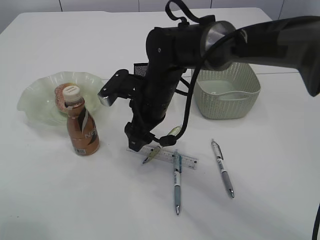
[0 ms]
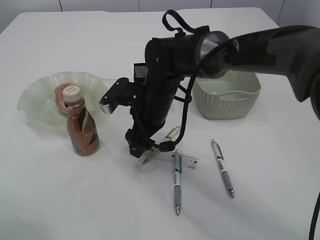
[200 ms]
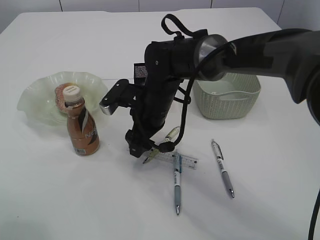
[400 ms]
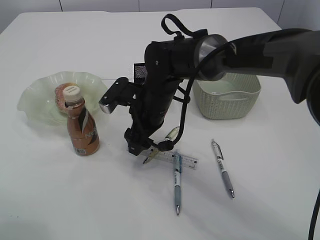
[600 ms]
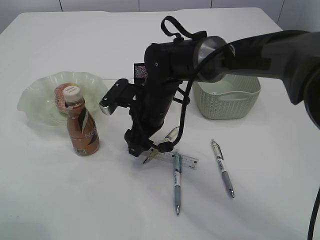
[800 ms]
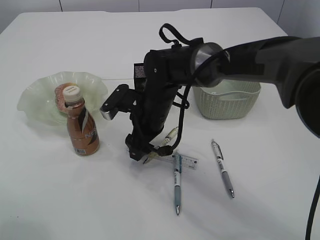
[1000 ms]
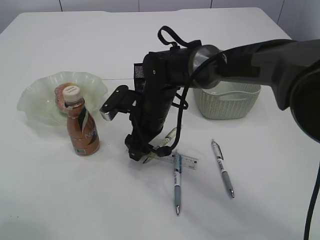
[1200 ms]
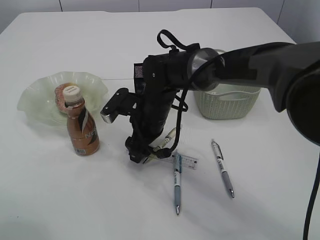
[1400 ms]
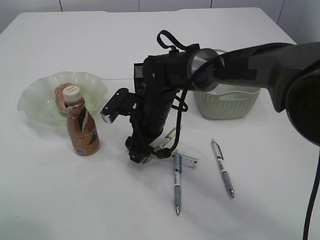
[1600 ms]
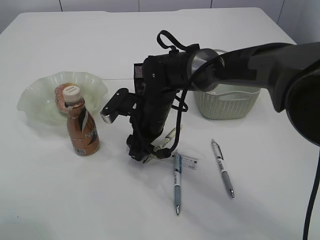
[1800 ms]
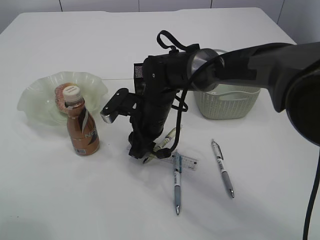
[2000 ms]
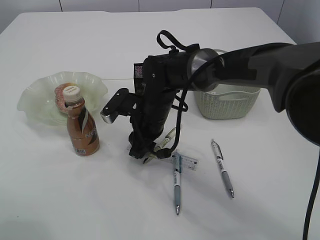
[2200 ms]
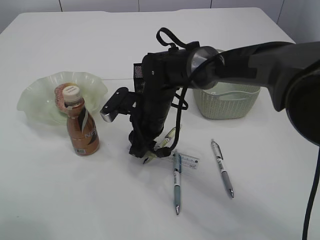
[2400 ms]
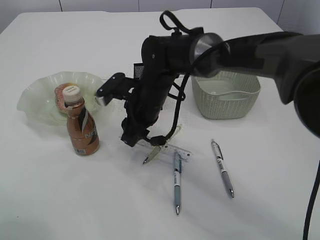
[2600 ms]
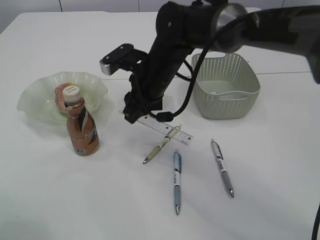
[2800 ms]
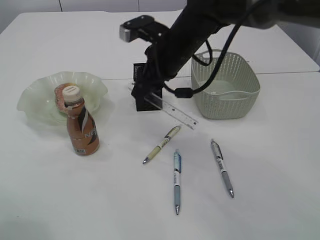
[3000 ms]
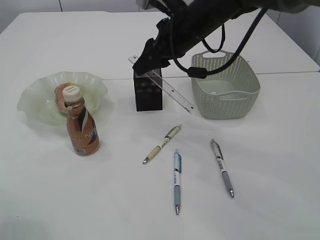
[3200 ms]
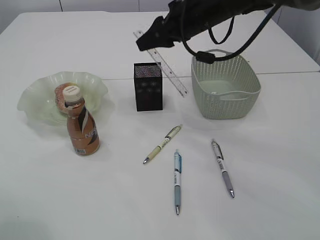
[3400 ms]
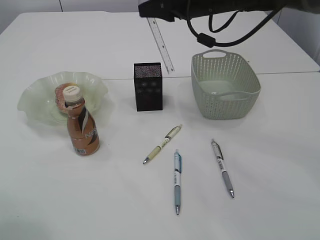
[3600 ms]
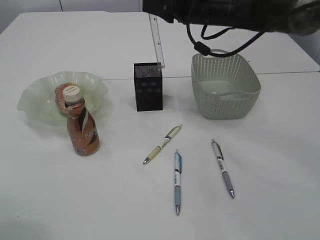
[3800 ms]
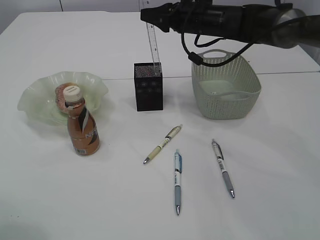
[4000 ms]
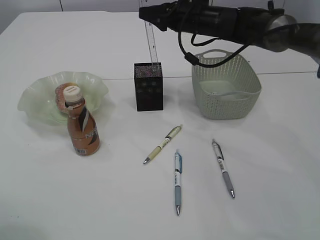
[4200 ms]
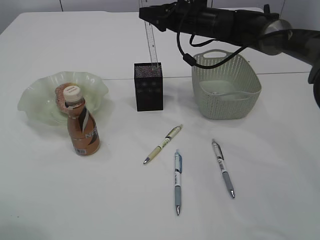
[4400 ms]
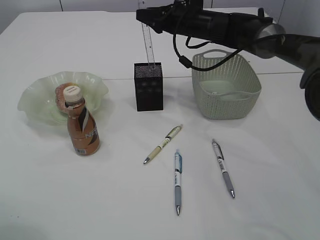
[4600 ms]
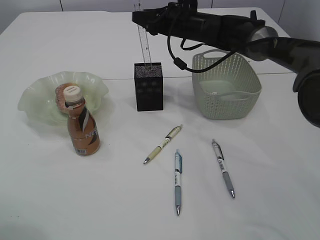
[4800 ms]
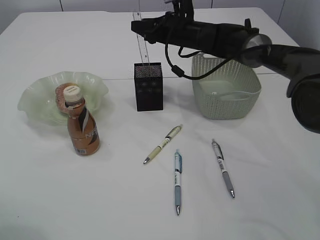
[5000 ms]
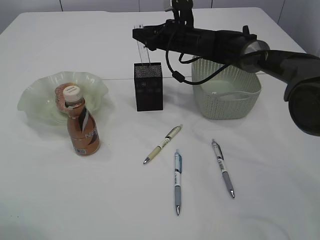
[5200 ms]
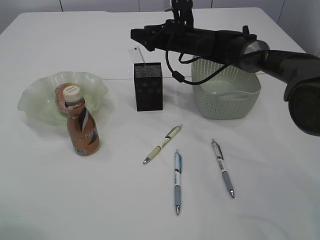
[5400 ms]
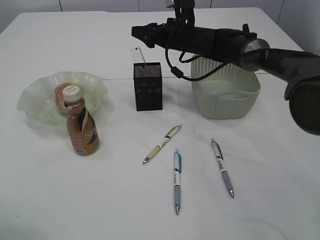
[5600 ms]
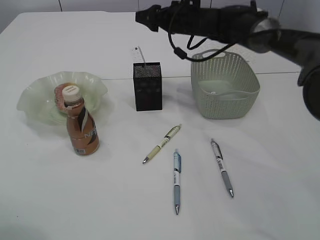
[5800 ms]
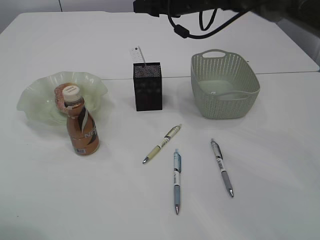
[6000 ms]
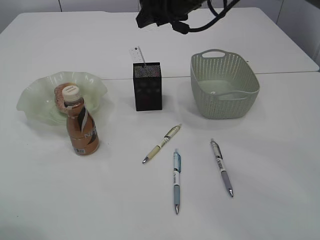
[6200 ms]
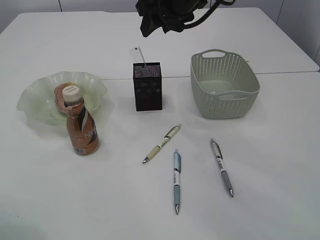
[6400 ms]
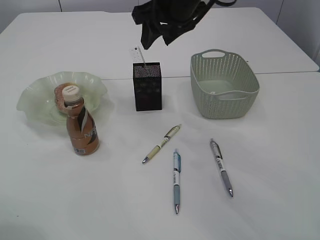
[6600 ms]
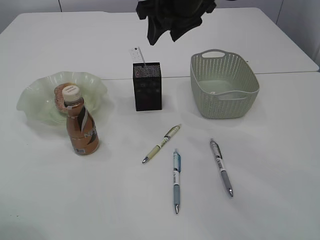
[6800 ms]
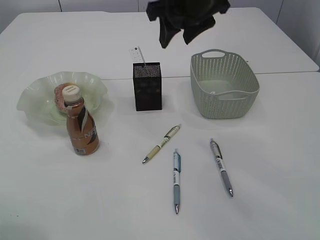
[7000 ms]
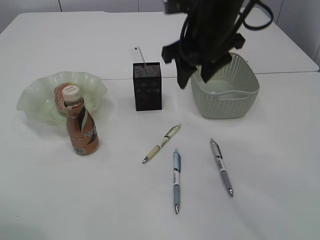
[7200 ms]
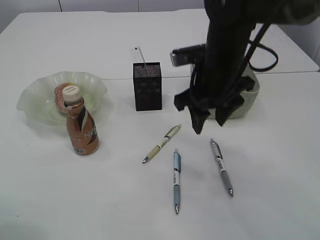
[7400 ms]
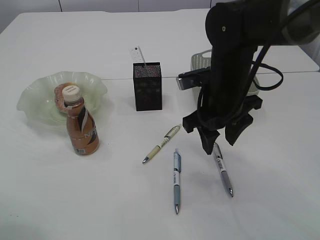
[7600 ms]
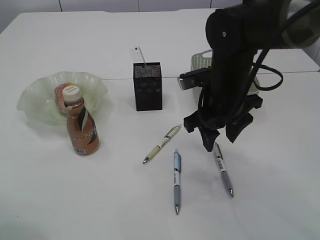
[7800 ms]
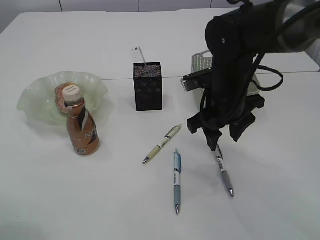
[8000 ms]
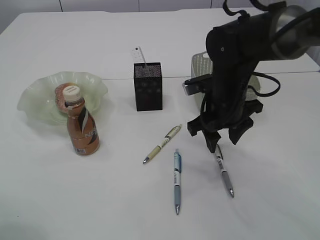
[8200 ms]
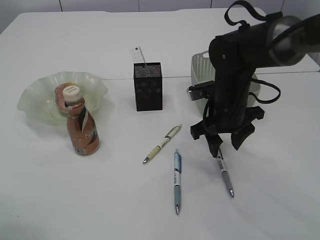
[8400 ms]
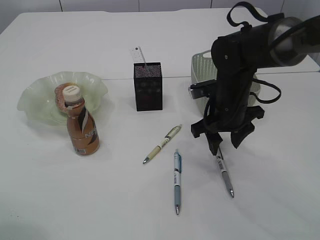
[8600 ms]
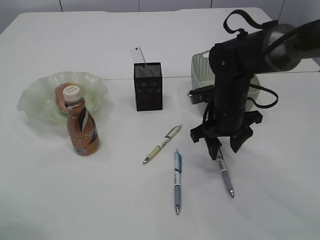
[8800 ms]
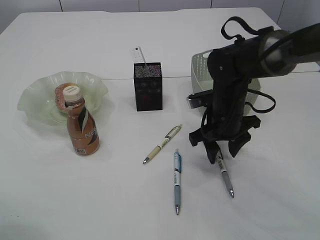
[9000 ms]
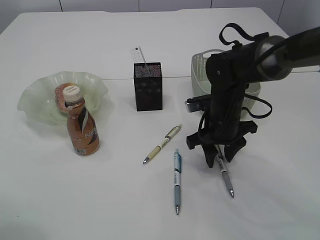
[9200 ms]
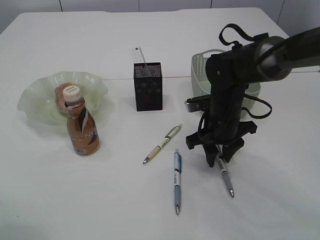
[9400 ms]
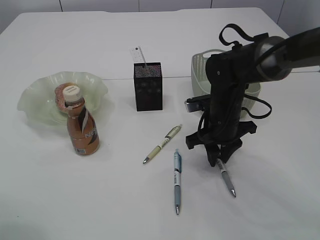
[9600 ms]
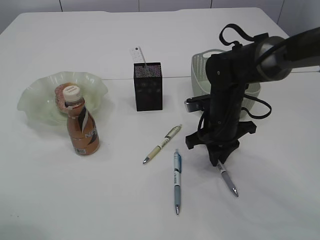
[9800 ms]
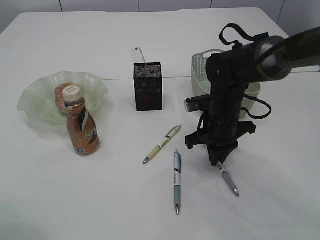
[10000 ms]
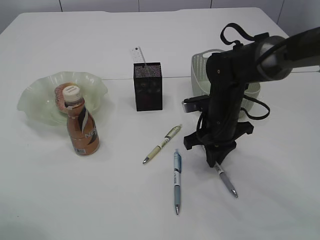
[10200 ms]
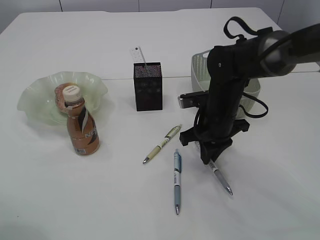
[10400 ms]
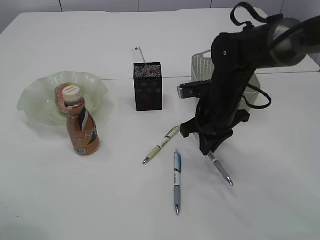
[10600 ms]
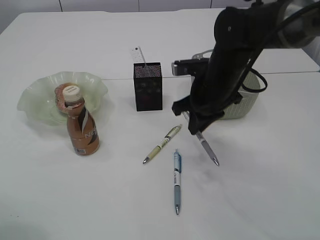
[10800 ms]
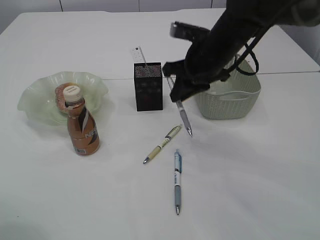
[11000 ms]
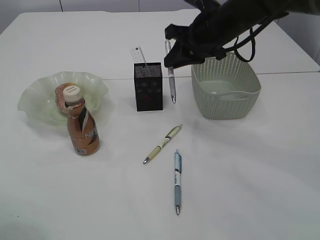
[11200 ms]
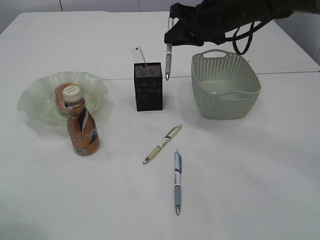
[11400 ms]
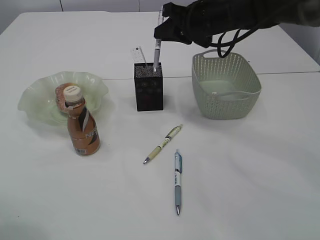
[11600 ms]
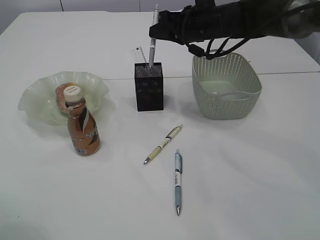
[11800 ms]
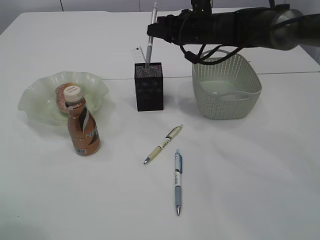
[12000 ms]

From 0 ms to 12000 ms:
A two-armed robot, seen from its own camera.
Step, from 0 ms to 2800 ms: pick up the ruler.
Step, from 3000 ms to 5600 ms: Place the ruler into the pen holder.
Step, from 5800 ms to 10800 ms: Pick up the pen with right arm.
From 0 ms to 1600 ms: The right gripper changes place by about 5 cm.
From 1600 ms to 3000 ms: The right gripper moves upward, approximately 10 cm, and closes up.
From 3000 ms to 4400 ms: The right gripper is displaced forward and to the right by about 15 cm.
From 4400 ms to 6000 ms: The right gripper shifts by some 5 cm.
From 6000 ms to 7600 ms: The right gripper moves backward and downward, approximately 20 cm.
From 7600 ms to 9000 ms: The right gripper goes some 5 cm downward.
From 9000 ms to 10400 ms: The right gripper closes.
From 10400 ms to 12000 ms: The right gripper goes roughly 15 cm forward and upward.

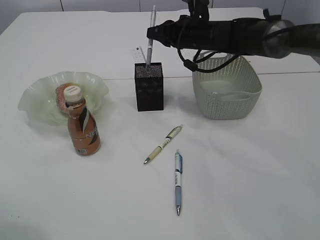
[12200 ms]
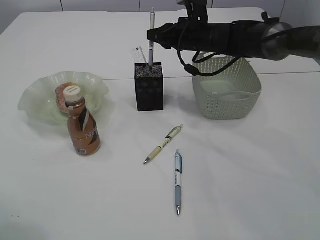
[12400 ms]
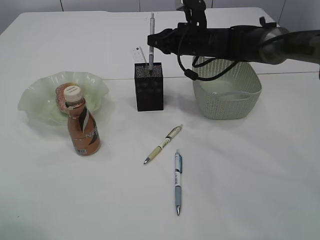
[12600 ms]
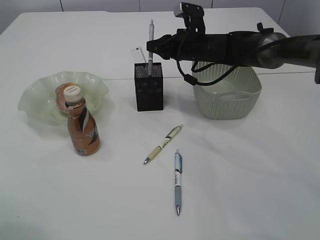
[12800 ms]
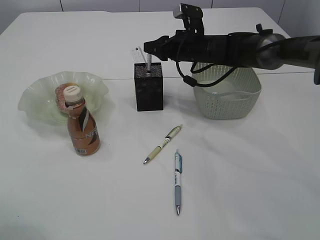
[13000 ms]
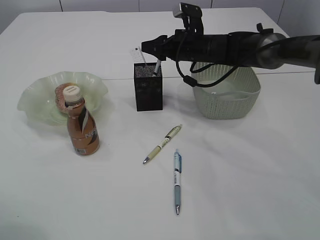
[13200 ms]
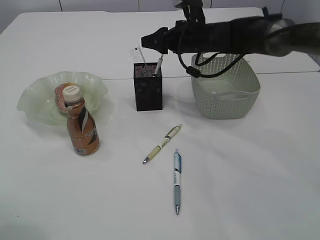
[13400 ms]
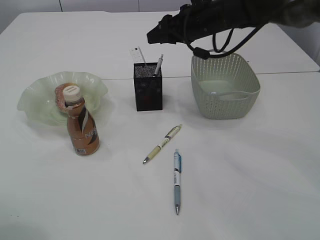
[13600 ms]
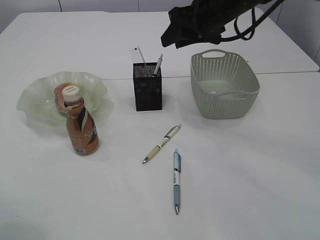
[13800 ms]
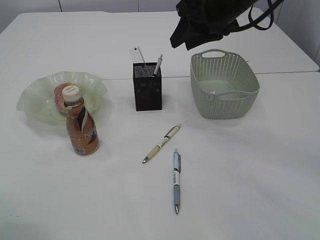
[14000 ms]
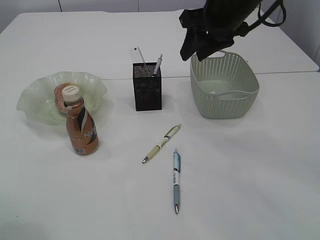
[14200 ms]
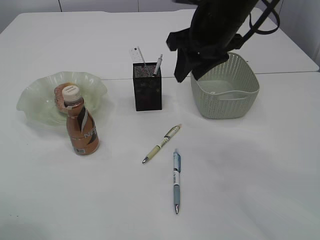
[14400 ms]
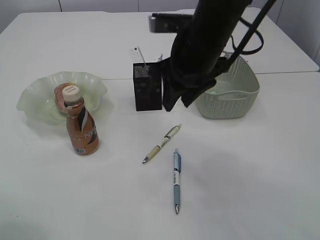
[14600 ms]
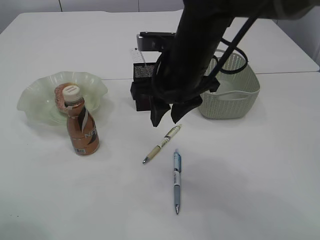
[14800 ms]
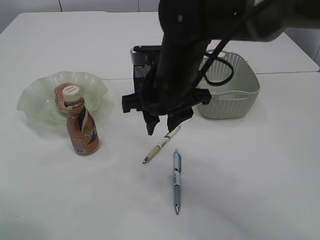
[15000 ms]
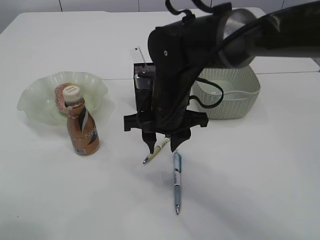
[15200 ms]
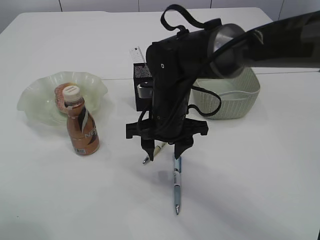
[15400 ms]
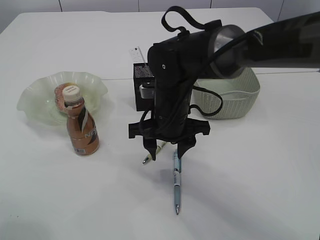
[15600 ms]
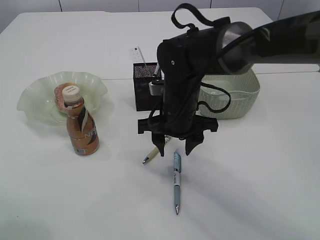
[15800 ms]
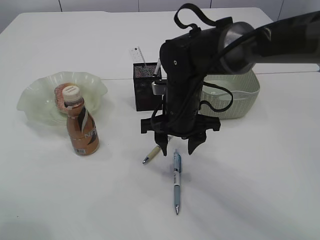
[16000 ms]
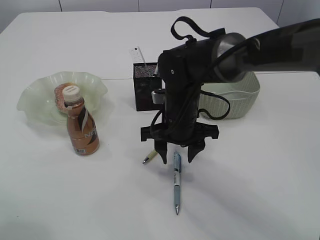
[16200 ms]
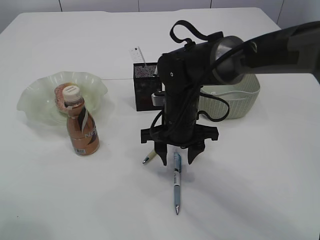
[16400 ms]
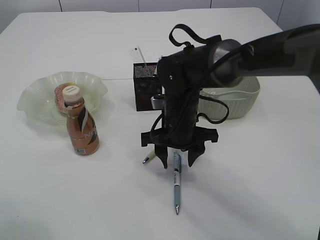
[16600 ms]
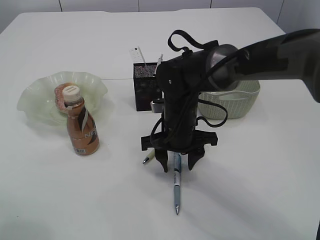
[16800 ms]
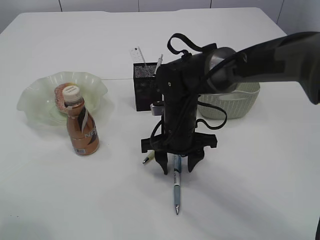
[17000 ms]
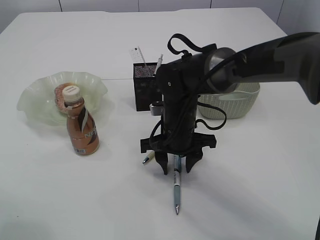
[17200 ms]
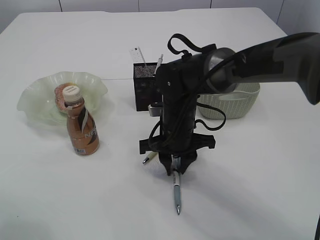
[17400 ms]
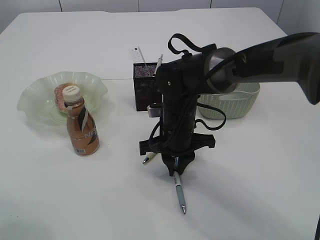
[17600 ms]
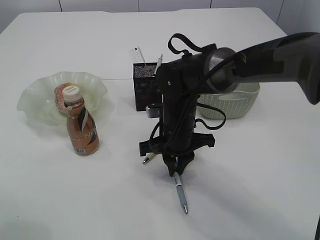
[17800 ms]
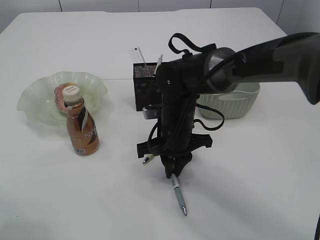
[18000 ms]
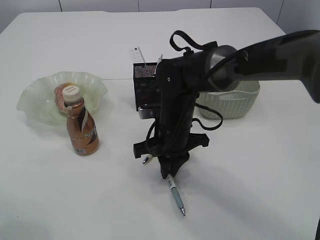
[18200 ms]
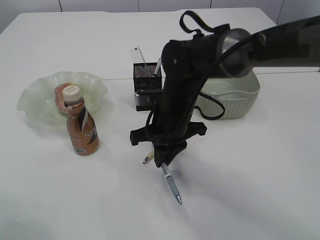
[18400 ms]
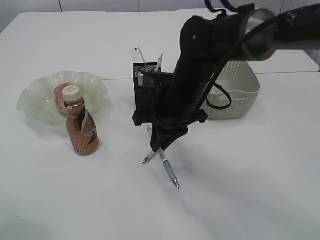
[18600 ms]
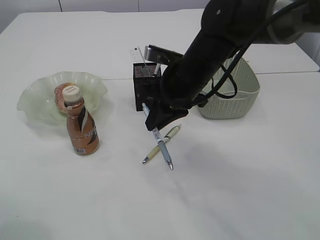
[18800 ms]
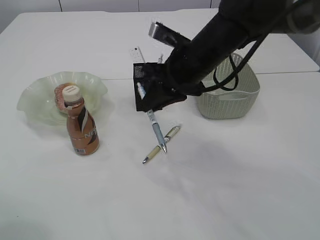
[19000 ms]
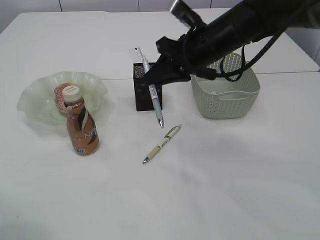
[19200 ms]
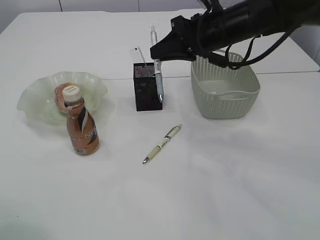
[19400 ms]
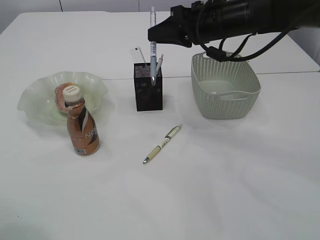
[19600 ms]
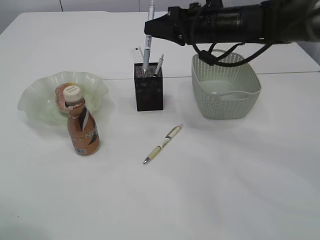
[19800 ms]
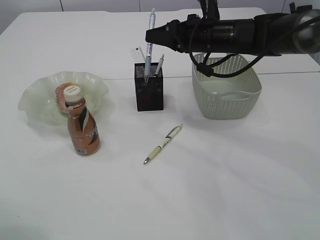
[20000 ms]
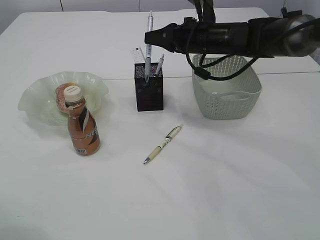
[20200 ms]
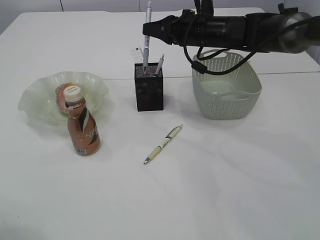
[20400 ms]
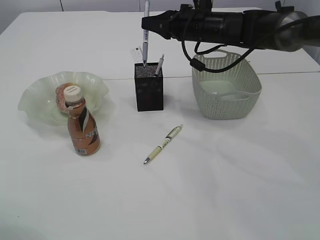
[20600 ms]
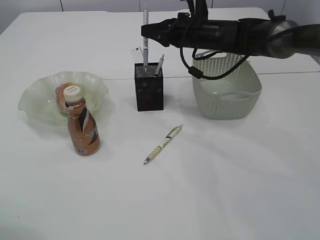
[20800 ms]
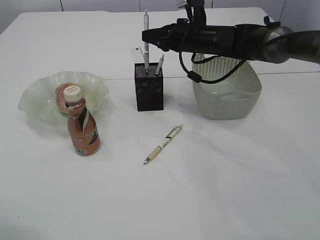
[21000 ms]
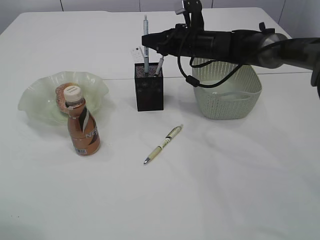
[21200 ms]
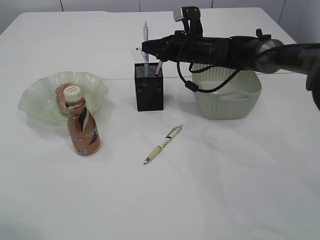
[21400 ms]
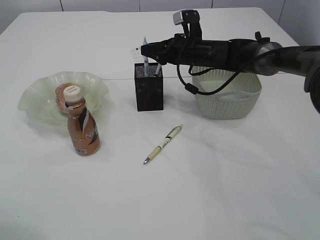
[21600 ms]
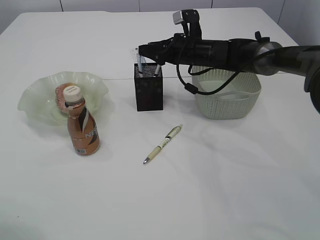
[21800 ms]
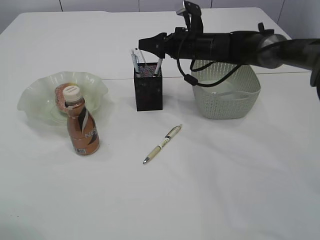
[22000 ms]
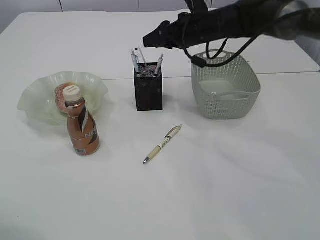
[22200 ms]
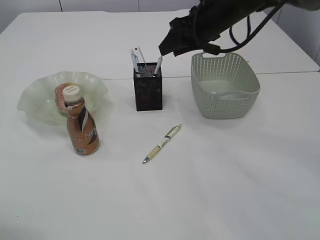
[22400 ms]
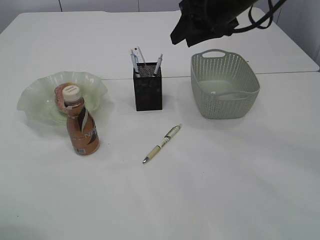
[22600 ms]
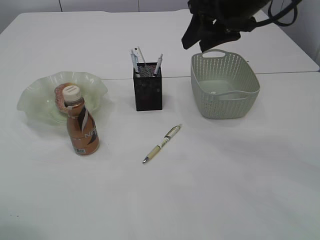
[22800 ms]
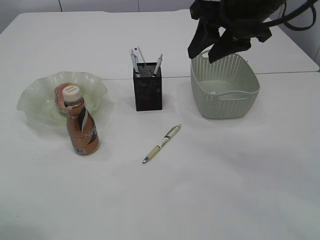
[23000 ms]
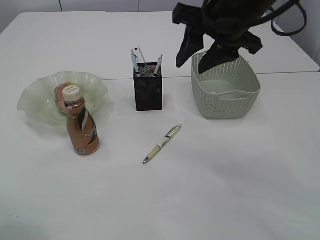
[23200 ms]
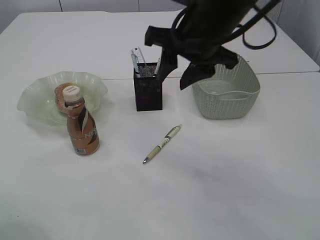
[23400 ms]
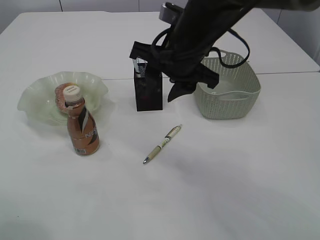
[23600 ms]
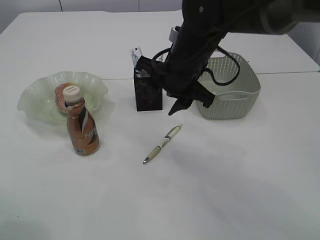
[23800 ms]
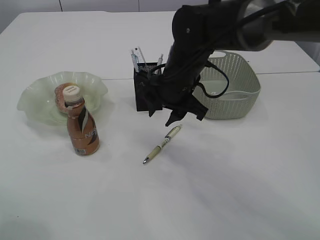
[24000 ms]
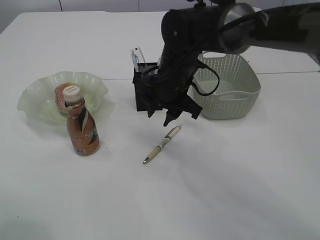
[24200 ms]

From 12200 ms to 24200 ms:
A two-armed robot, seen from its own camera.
Step, from 12200 ms to 13400 ms: Place the pen into the pen holder.
Step, from 13600 ms to 18600 ms: Pick up the pen with right arm.
Step, from 18800 ms to 22000 ms: Place the pen into the pen holder.
From 12200 ms to 13800 ms: The right gripper goes some 10 cm upward and backward, and opens.
From 13800 ms to 15200 ms: The right gripper shifts about 20 cm backward, to the left and downward.
From 15200 ms to 16600 ms: The right gripper travels downward by roughly 5 cm.
From 16600 ms to 18200 ms: The right gripper closes its fingers.
From 18200 ms to 19800 ms: The right gripper travels upward, forward and to the right by some 20 cm.
From 19800 ms to 21200 ms: The right gripper moves forward and downward, some 10 cm.
From 21200 ms to 22600 ms: The right gripper goes about 15 cm upward and backward, and opens up.
From 22600 ms to 24200 ms: The right gripper goes approximately 15 cm downward and to the left.
